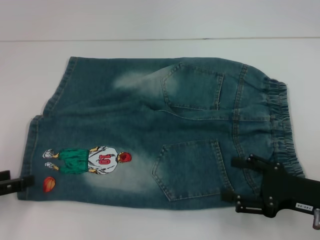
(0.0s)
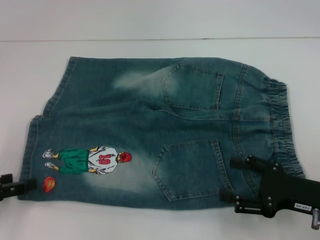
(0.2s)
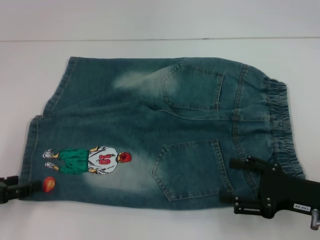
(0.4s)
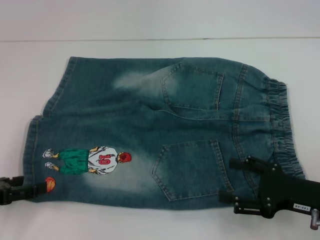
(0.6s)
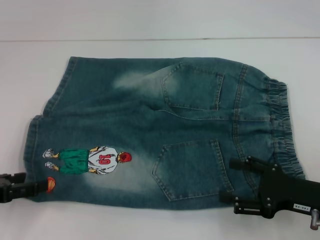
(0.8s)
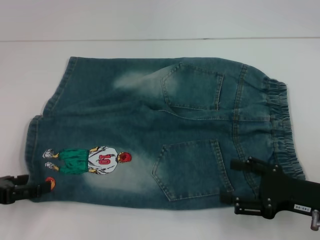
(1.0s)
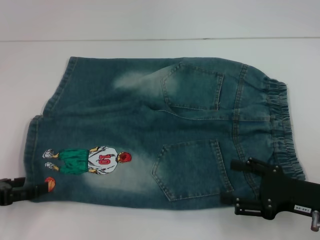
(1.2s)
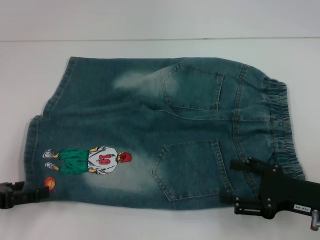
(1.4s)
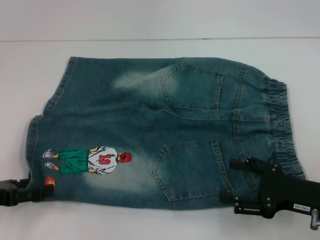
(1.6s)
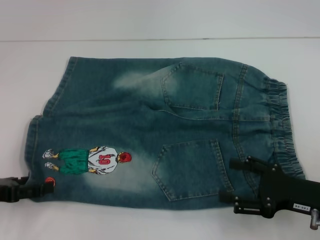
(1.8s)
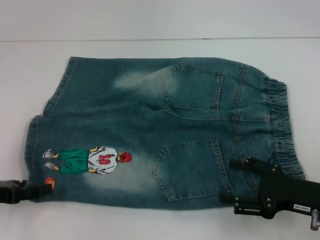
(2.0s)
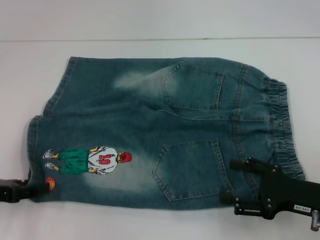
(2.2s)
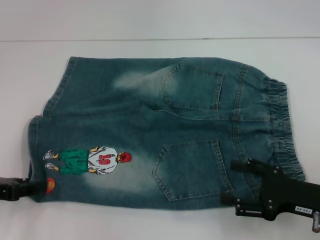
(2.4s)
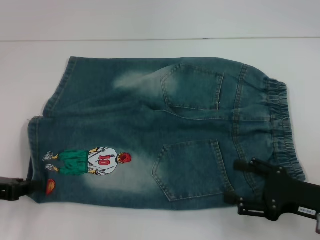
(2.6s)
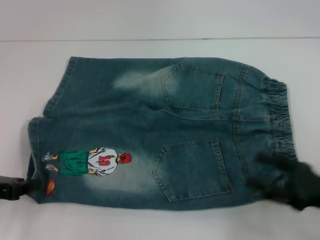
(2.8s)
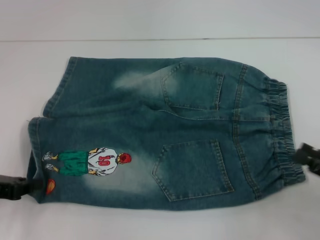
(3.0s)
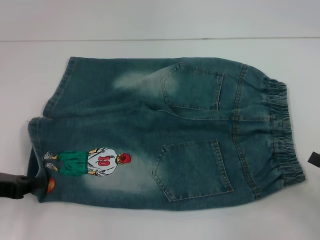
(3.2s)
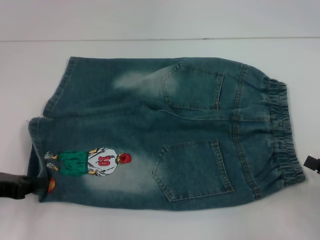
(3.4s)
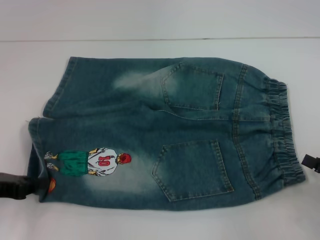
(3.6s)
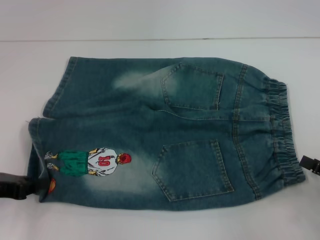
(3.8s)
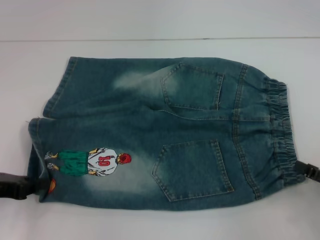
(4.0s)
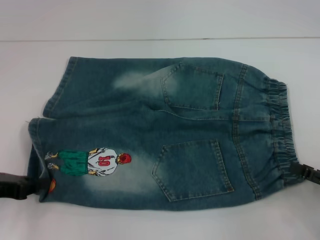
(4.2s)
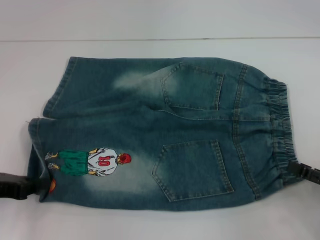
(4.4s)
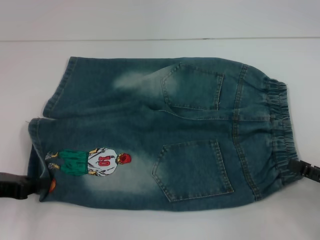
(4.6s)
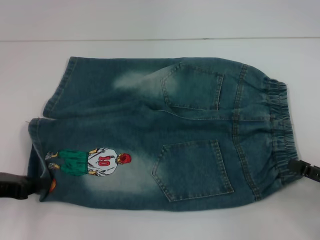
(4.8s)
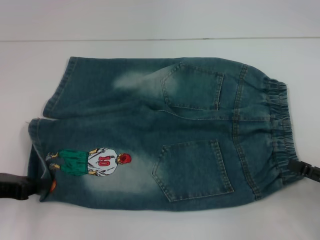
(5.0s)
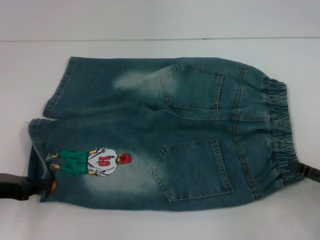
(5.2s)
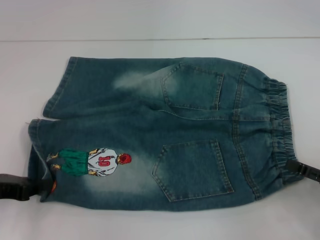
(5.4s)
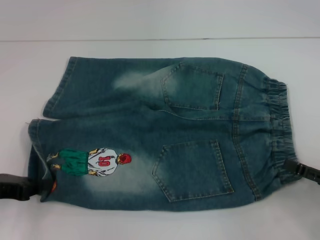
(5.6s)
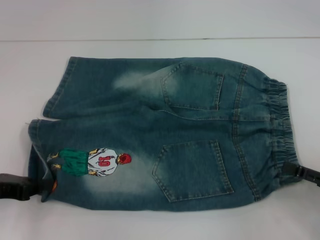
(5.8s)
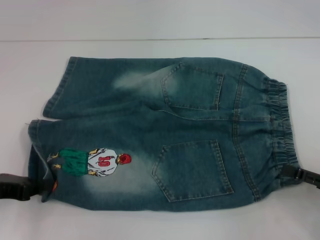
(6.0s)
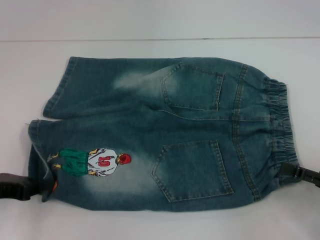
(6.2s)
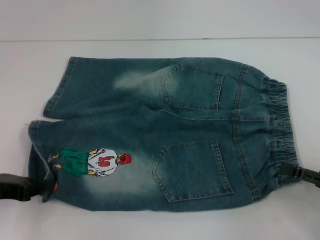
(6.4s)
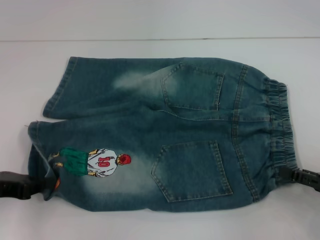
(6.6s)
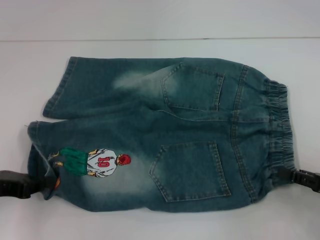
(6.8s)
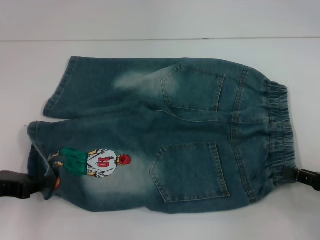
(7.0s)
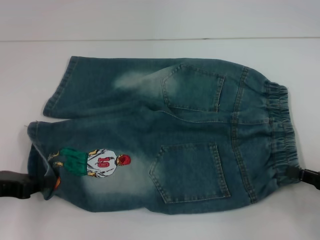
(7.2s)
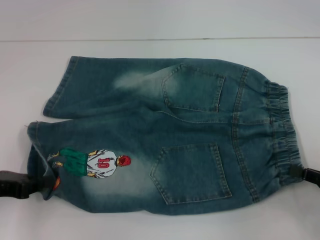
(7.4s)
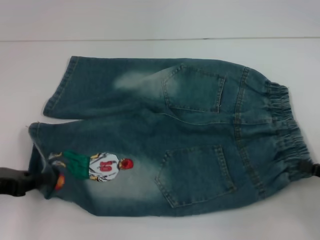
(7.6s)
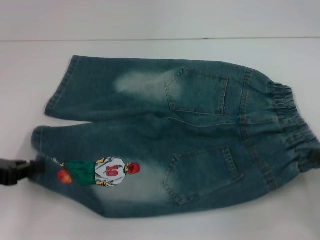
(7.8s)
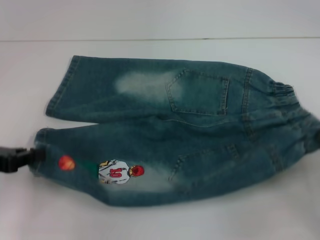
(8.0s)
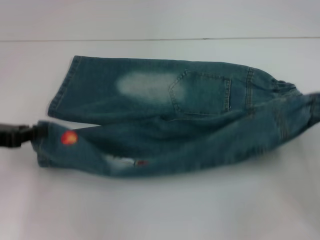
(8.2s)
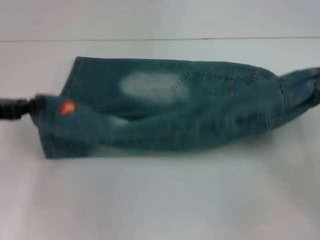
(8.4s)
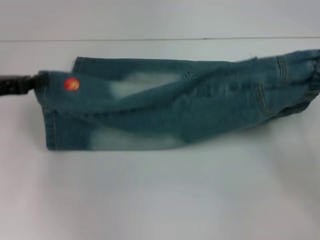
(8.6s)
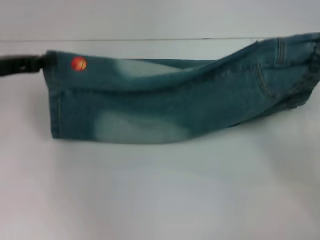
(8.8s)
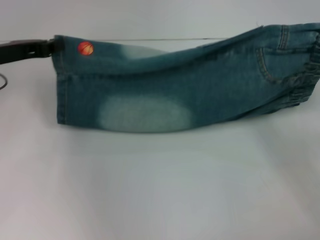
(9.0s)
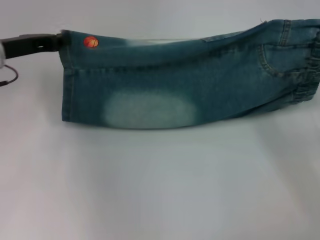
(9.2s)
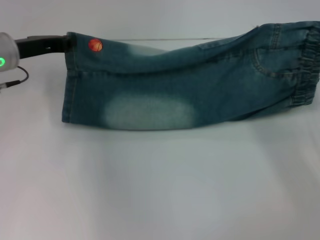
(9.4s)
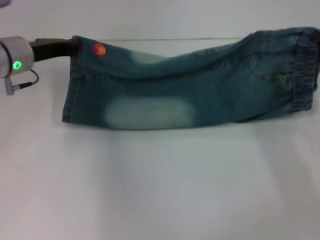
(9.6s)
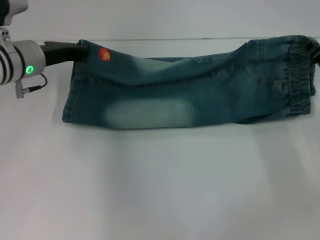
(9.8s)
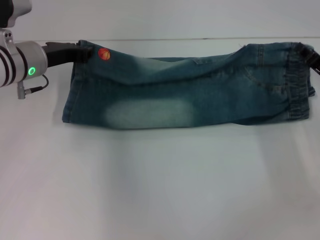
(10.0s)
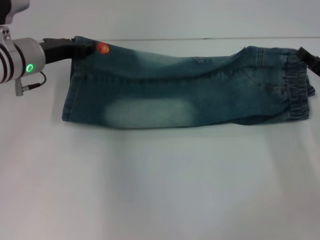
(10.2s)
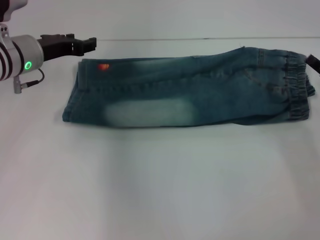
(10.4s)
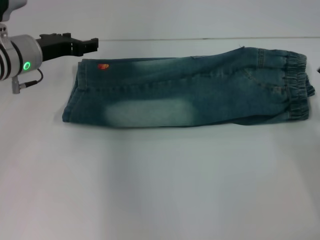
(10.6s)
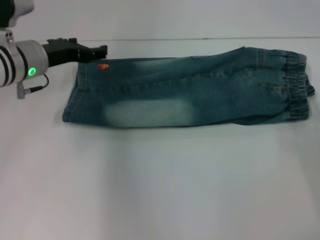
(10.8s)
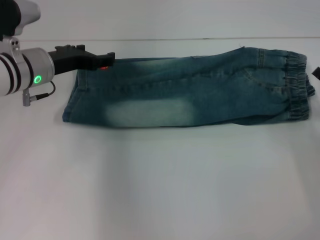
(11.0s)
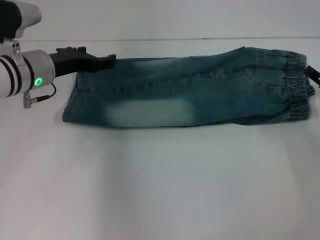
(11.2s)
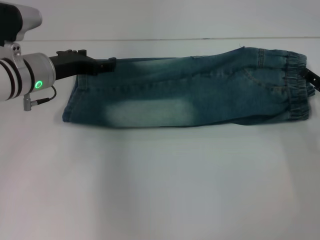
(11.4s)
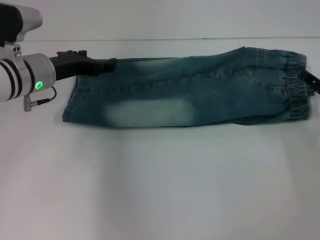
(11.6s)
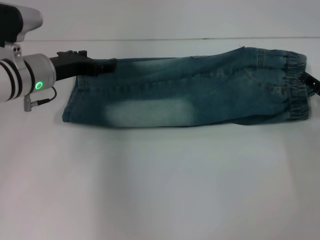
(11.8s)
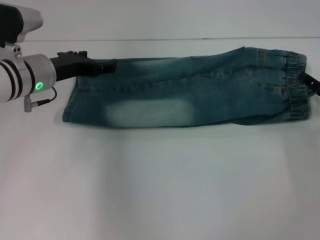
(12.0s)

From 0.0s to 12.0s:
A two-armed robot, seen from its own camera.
Step, from 0.0s to 3.0s: Grab the lower left pant leg with your left hand.
Step, from 3.2s to 7.6s: Hold the lower right waistband with your right hand.
Step, from 7.8s to 10.6s: Fold upward with your right hand.
From 0.0s to 1.6s: The grippers make only small movements.
From 1.6s to 3.0s: The left gripper closes. The right gripper travels to the right by about 5 cm.
From 3.0s to 4.4s: The grippers make only small movements.
From 4.4s to 6.0s: The grippers make only small movements.
From 6.0s to 7.6s: The right gripper closes up.
From 7.6s to 9.0s: The left gripper moves forward and upward, some 15 cm. The right gripper goes approximately 10 cm forward.
From 9.0s to 10.4s: The right gripper opens. Meanwhile the left gripper heads to the right, covering roughly 5 cm, and opens up.
From 10.4s to 12.0s: The left gripper opens its fingers; the right gripper opens.

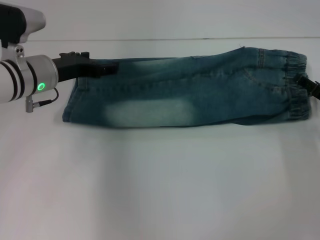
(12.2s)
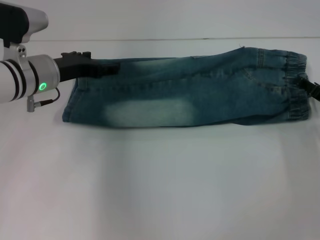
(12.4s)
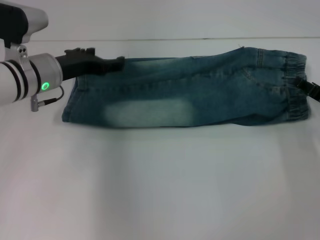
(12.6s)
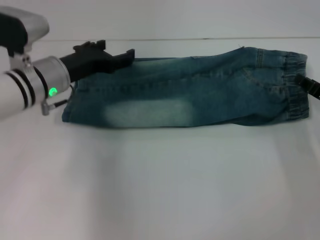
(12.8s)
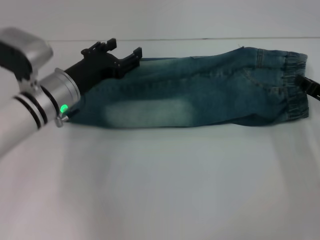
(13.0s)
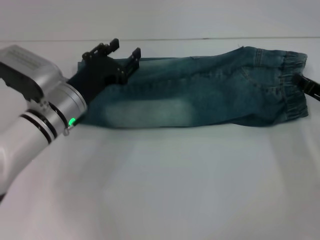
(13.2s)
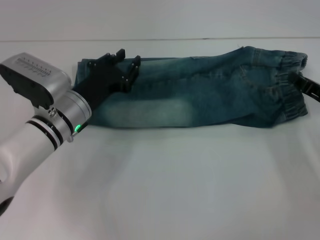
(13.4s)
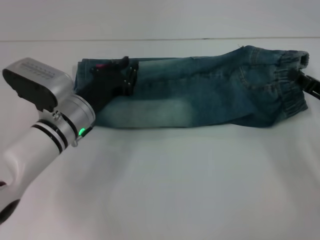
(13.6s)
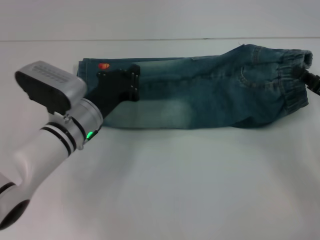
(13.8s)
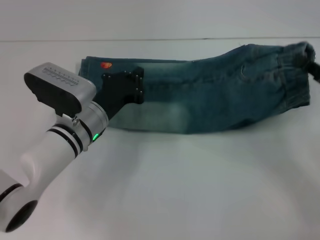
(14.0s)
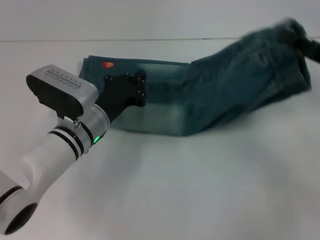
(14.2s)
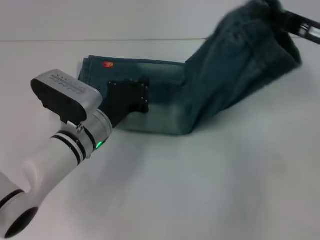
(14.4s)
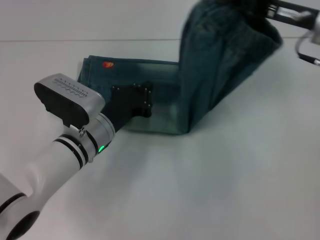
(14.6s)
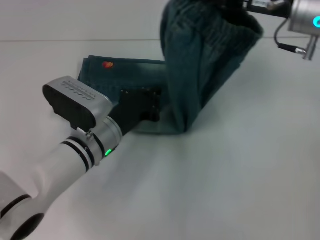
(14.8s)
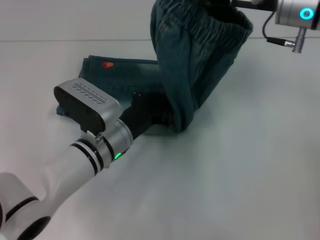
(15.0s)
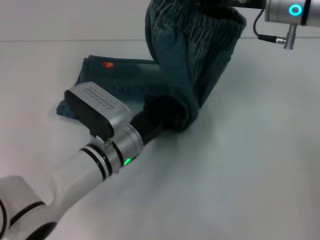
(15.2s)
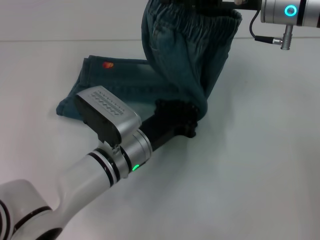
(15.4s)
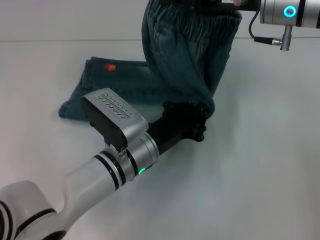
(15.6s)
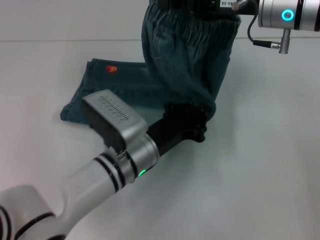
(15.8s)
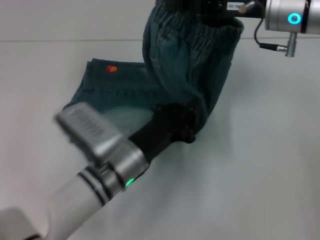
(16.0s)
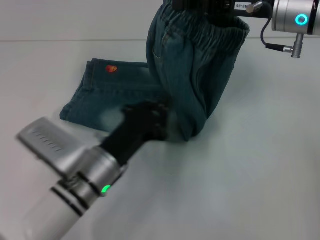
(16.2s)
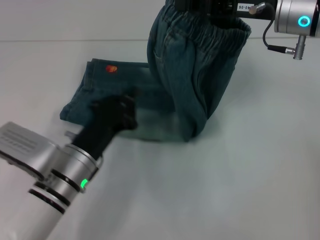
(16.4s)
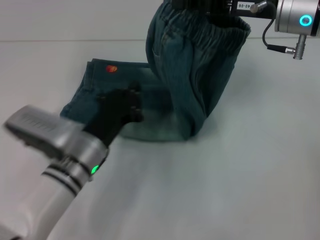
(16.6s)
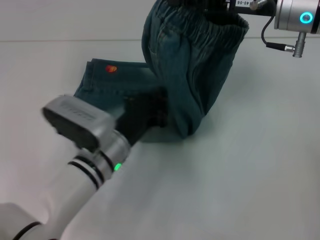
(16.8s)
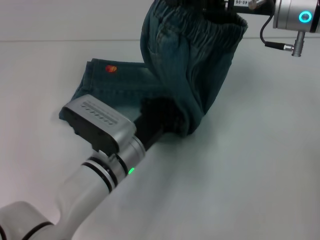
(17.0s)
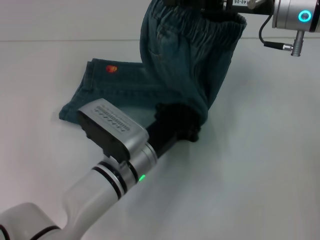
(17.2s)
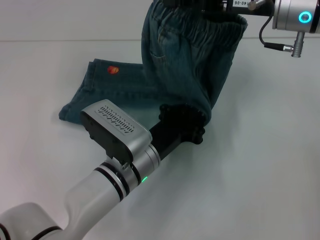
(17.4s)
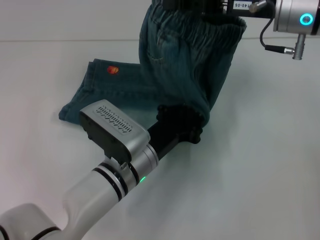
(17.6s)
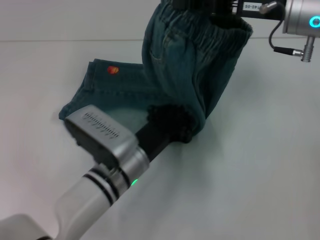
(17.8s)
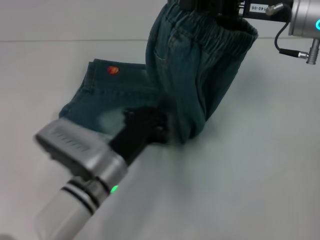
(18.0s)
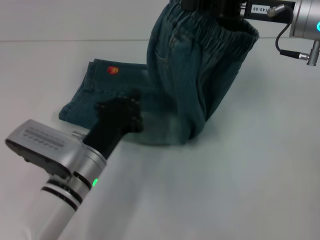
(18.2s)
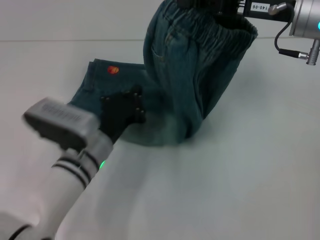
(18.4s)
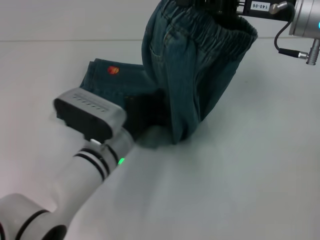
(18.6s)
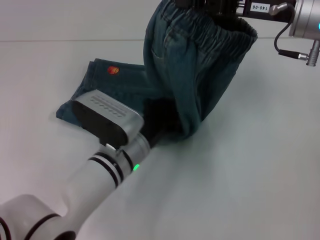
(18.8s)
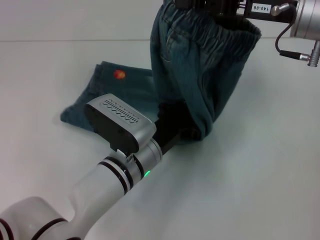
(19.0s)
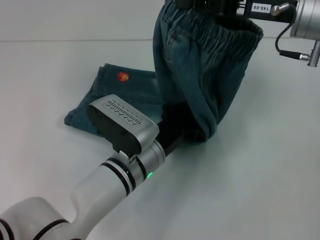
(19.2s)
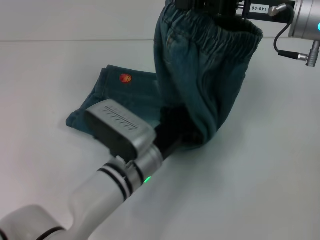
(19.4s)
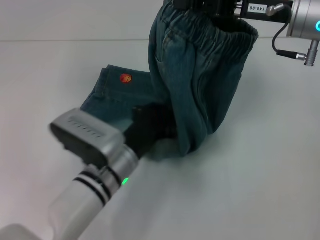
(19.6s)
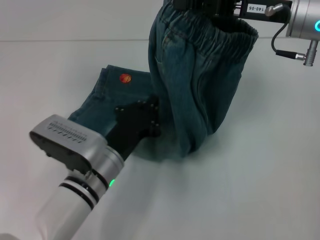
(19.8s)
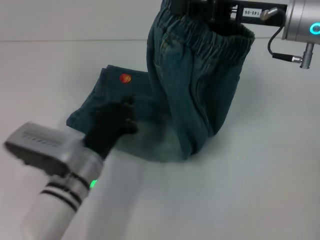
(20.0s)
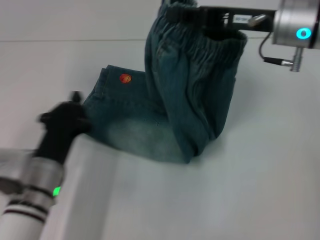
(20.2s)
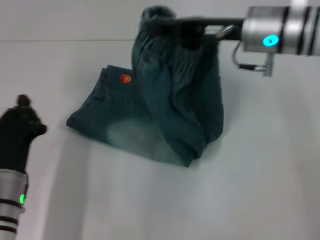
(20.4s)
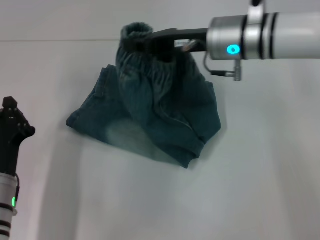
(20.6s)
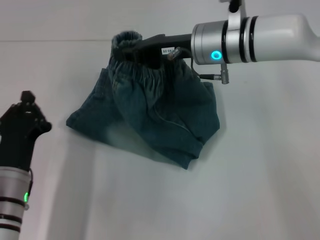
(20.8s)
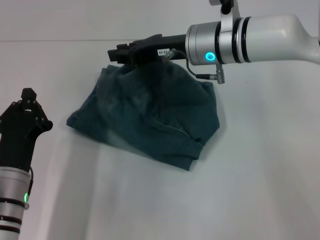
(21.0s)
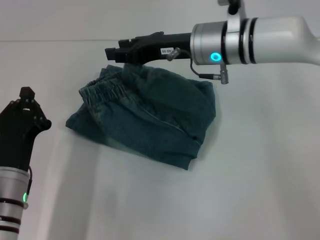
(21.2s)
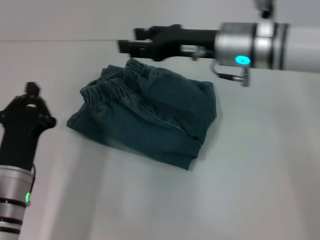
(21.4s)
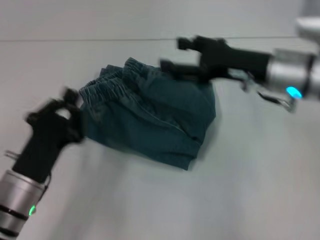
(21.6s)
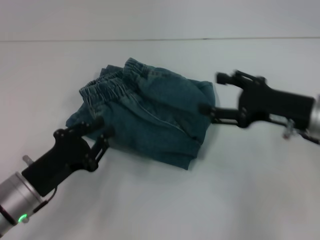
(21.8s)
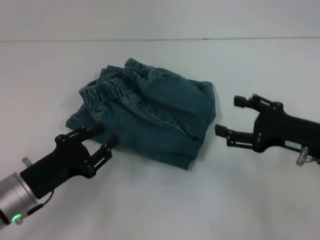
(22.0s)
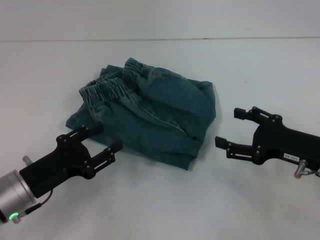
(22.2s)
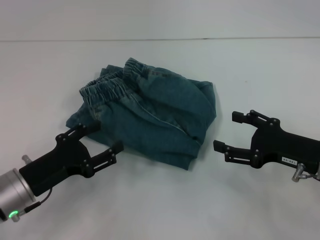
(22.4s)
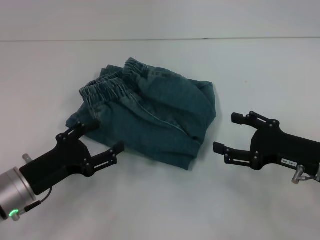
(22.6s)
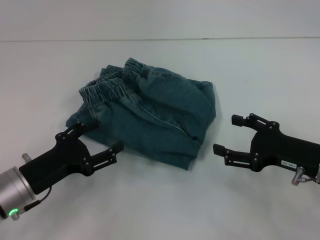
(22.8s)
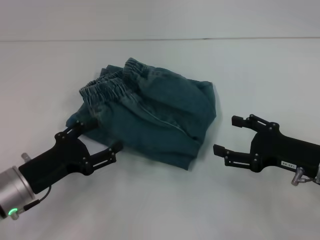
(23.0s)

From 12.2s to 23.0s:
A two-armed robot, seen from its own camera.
Step, from 13.4s to 19.8s: Press the middle of the pants with your left hand.
Step, from 20.0s to 21.4s: Fold to the left with your right hand.
From 12.2s to 13.8s: The left gripper moves downward, to the right and backward, some 10 cm, and closes its fingers. Meanwhile the right gripper closes its fingers.
From 13.8s to 15.2s: The left gripper is displaced to the right by some 5 cm; the right gripper shifts about 25 cm upward, to the left and forward.
From 15.2s to 16.8s: The left gripper goes to the left and returns, approximately 5 cm each way.
From 16.8s to 18.4s: The grippers stay close to where they were, moving slightly.
From 18.4s to 20.0s: The left gripper reaches some 5 cm to the right, then returns.
From 20.0s to 21.4s: Both grippers move to the left, some 5 cm. The right gripper opens its fingers.
From 21.4s to 23.0s: The right gripper is displaced backward, to the right and downward by approximately 20 cm, and opens; the left gripper opens up.
